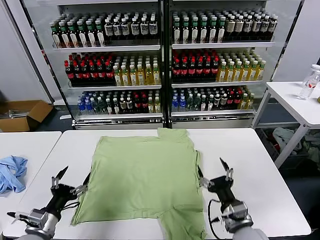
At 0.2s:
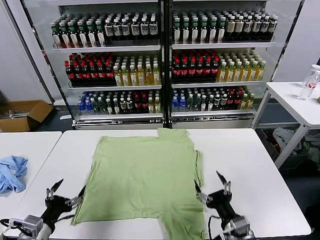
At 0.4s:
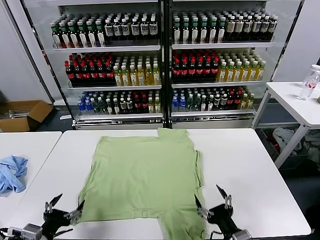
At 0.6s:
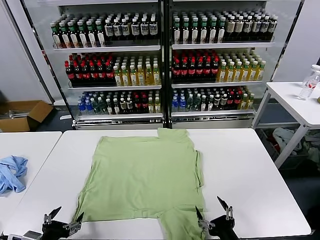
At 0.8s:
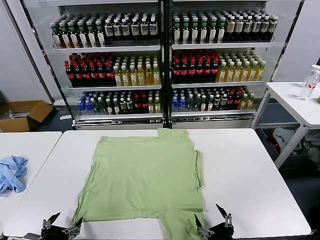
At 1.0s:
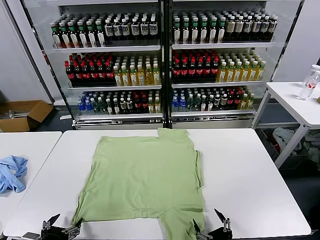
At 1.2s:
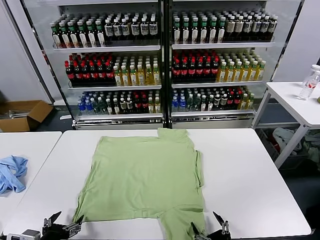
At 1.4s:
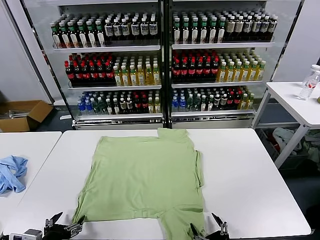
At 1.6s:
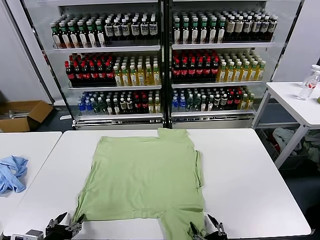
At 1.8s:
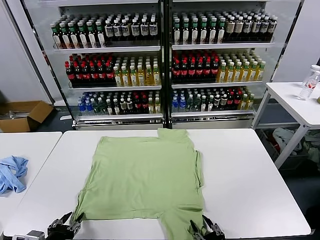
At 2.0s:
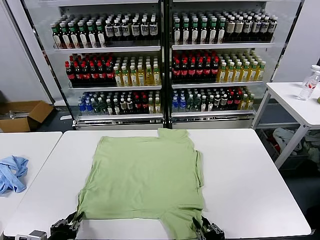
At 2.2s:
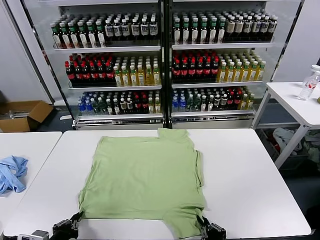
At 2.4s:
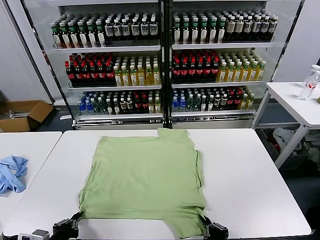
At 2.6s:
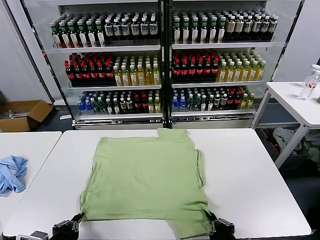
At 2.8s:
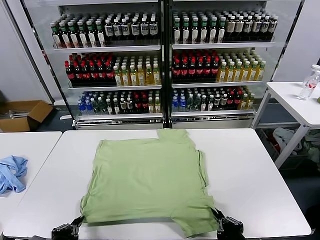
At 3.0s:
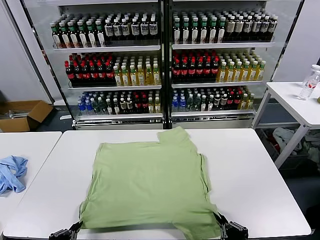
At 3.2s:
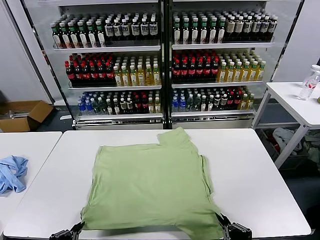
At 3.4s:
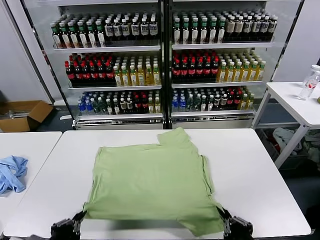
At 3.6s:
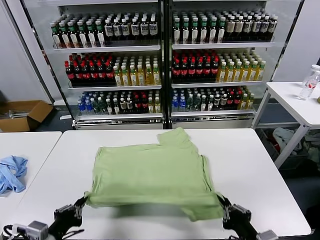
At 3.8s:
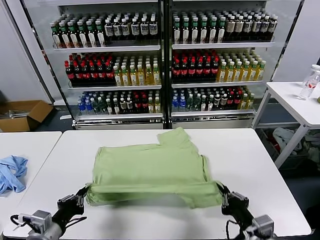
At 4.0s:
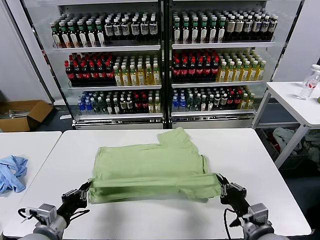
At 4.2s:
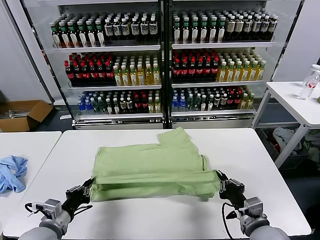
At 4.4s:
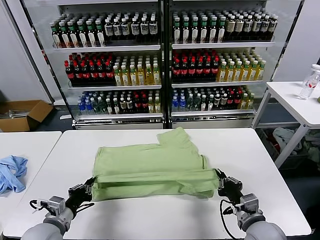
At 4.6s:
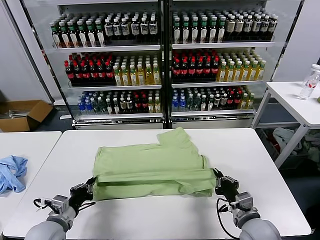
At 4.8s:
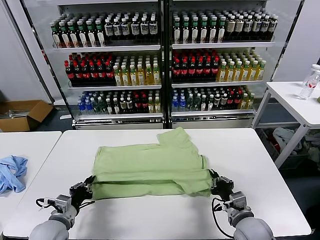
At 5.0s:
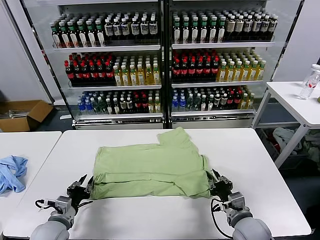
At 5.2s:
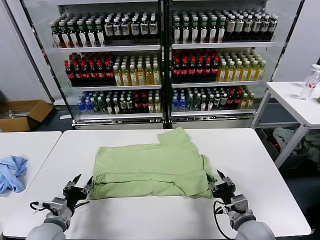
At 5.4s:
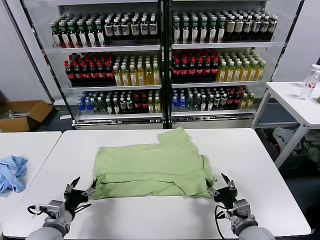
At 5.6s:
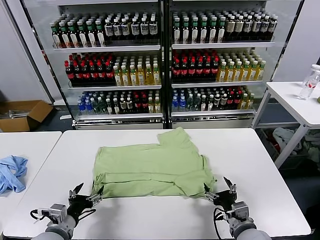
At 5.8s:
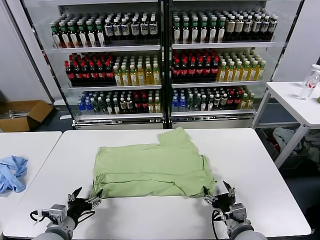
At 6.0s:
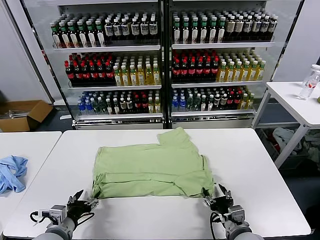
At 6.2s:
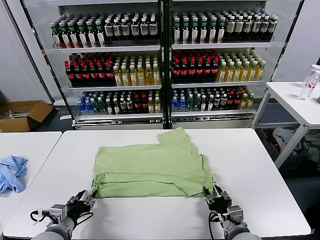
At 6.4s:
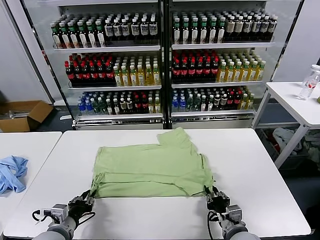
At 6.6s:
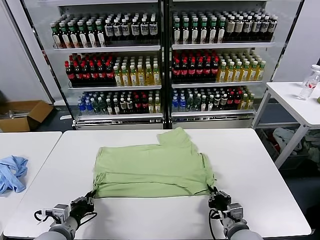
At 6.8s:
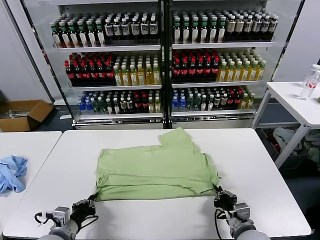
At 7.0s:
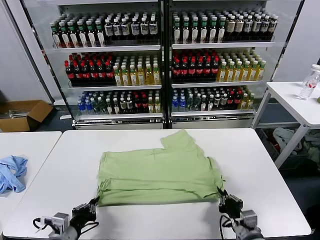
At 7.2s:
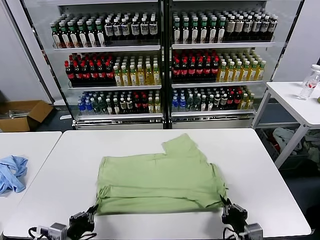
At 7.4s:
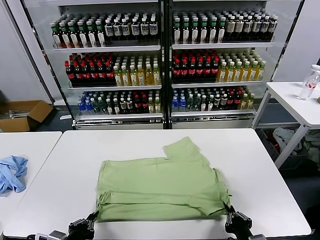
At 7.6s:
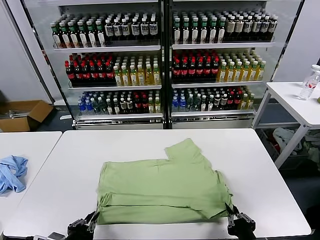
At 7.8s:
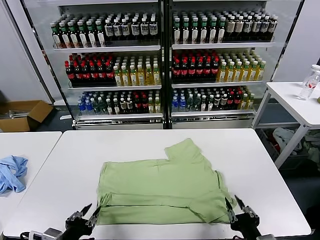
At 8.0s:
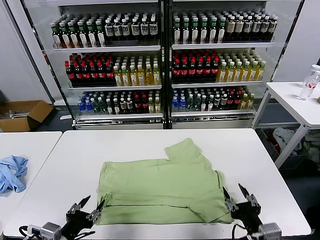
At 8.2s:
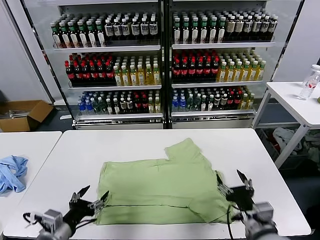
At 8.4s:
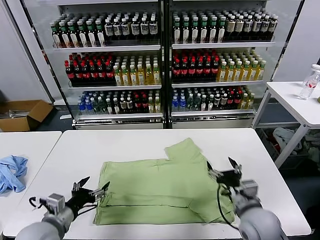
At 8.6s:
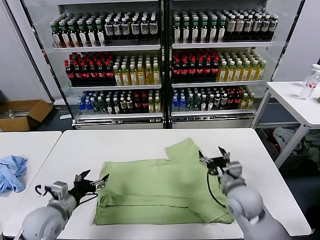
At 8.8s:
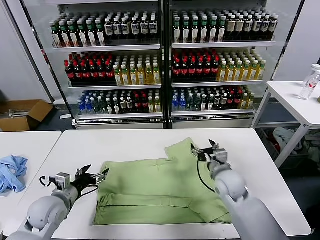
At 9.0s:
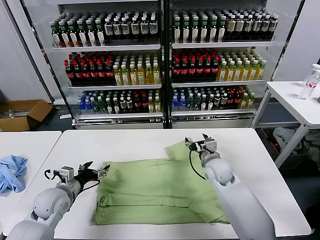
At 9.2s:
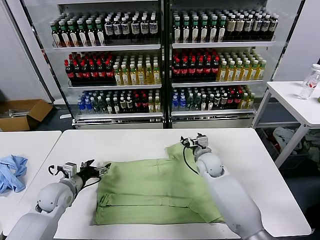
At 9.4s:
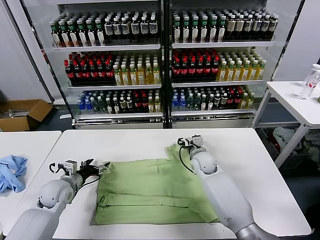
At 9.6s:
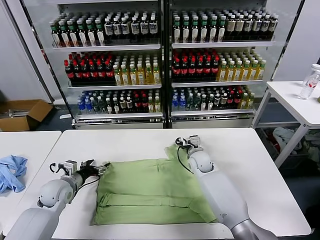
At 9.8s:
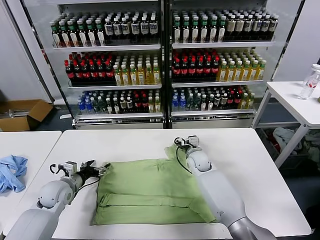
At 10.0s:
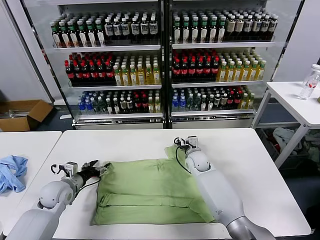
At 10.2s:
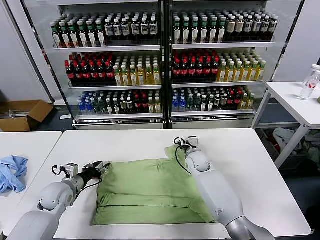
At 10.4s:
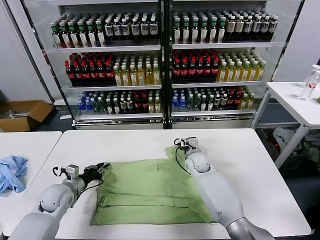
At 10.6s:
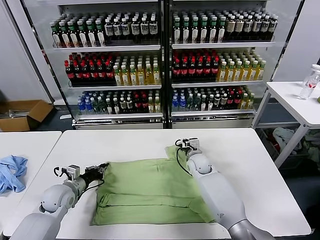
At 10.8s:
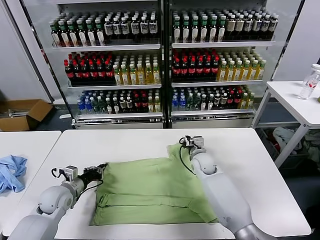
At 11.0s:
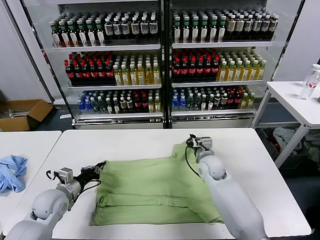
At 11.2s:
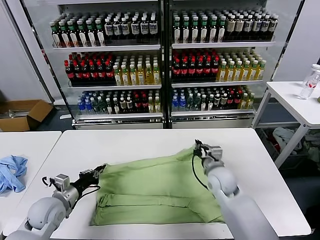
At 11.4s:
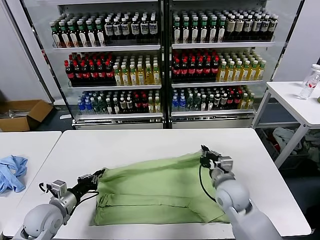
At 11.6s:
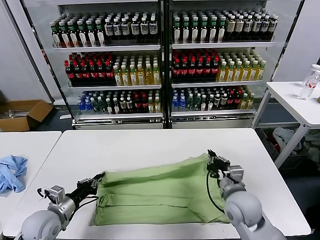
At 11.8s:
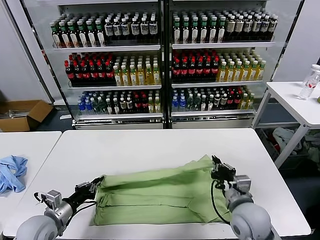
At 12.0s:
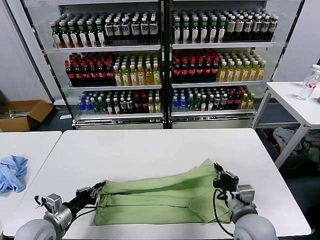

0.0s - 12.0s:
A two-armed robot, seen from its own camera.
Task of the whole recording: fold and organize the clothes.
Step, 0.0s - 2.2s: use both grippers simultaneously to clamp the lower edge of the clothing fabric.
Step, 2.4s - 5.0s: use both grippers to drag the lower edge of the fabric forward and fold it over the upper edge.
Step, 5.2s - 7.8s: Drag the clothes downward with both gripper.
Step, 8.0s - 10.6s: use both grippers simultaneously to clamp the upper edge of the clothing fabric.
1.6s - 3.0s: The right gripper travels upward by roughly 10 cm, and closes up; the left gripper ends up roughly 5 cm from where it was, and closes.
3.0s - 4.4s: The two grippers go approximately 15 cm forward.
4.4s - 6.0s: The left gripper opens. Meanwhile the right gripper ends up roughly 5 cm from where it was, and opens its fingers.
6.0s - 7.6s: The right gripper is displaced backward and upward by roughly 10 cm. Meanwhile the left gripper goes some 10 cm backward, and closes.
7.6s - 9.0s: The left gripper travels forward by about 20 cm, and opens. Meanwhile the right gripper travels forward by roughly 35 cm, and opens up.
9.0s - 10.4s: The right gripper travels downward by approximately 5 cm, and closes its fingers; the left gripper closes its fingers.
10.4s - 12.0s: The right gripper moves backward, roughly 30 cm, while the left gripper goes approximately 10 cm backward, and closes.

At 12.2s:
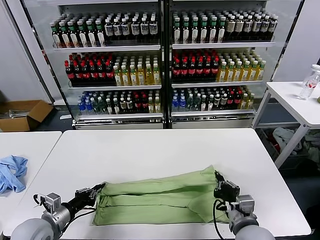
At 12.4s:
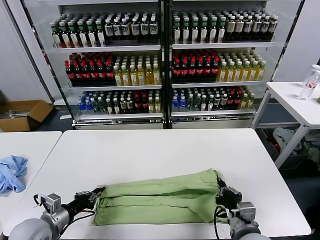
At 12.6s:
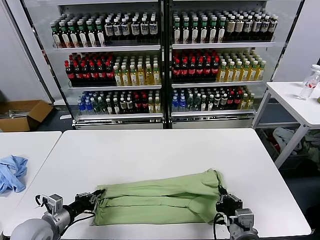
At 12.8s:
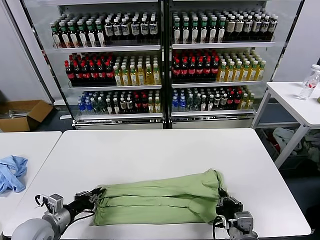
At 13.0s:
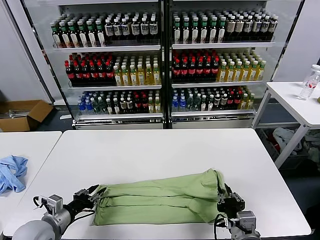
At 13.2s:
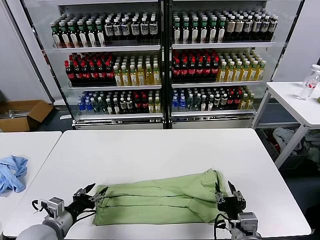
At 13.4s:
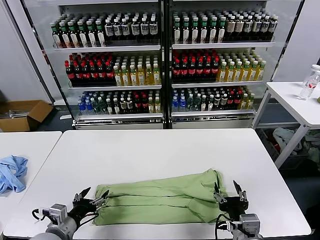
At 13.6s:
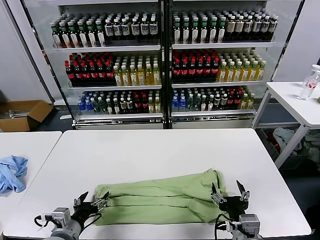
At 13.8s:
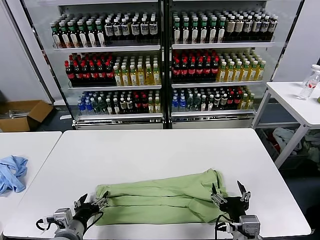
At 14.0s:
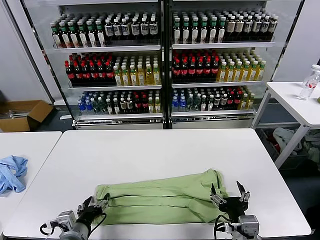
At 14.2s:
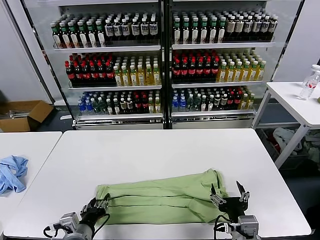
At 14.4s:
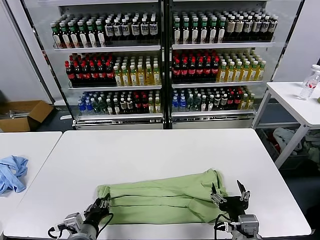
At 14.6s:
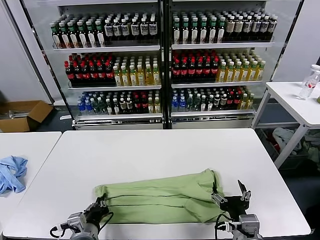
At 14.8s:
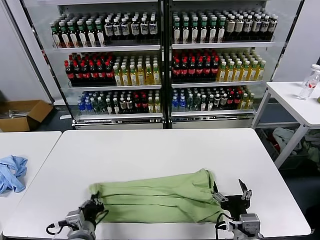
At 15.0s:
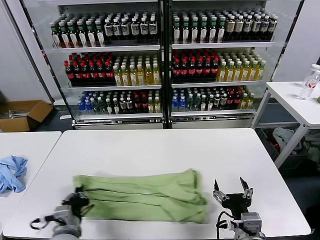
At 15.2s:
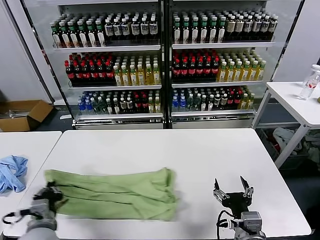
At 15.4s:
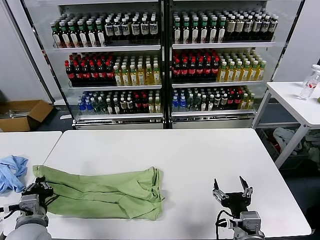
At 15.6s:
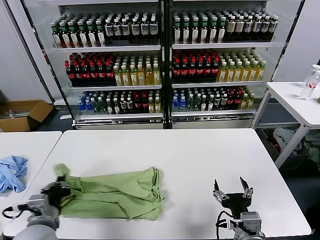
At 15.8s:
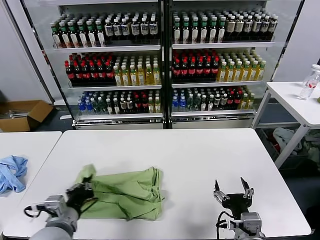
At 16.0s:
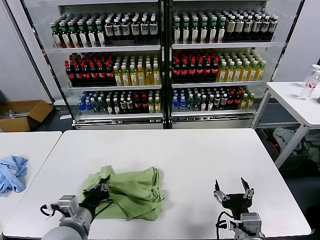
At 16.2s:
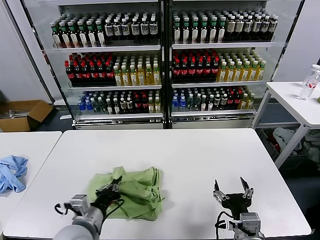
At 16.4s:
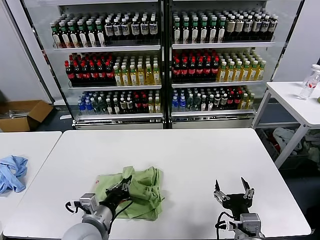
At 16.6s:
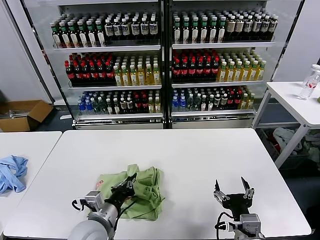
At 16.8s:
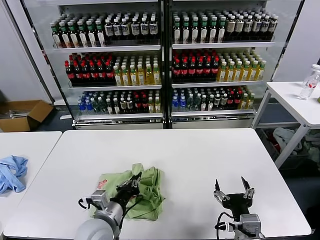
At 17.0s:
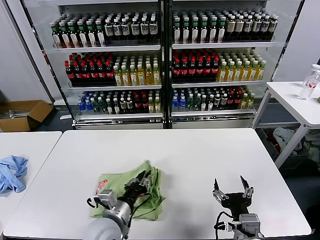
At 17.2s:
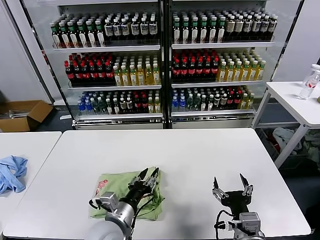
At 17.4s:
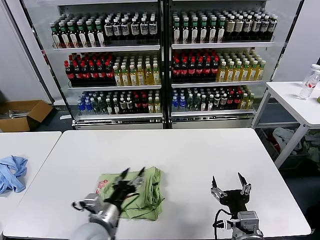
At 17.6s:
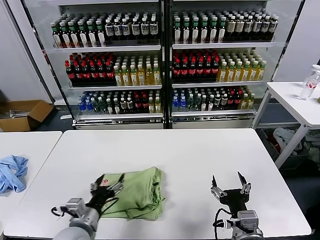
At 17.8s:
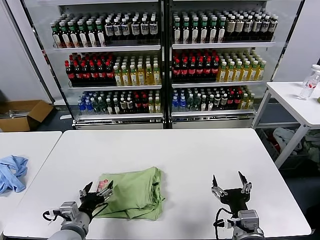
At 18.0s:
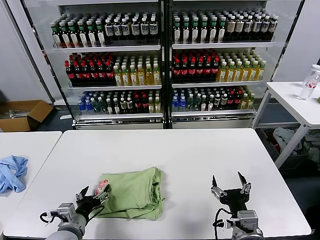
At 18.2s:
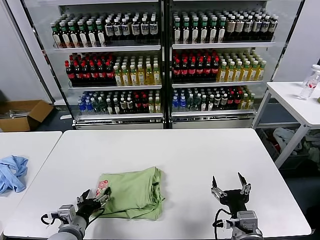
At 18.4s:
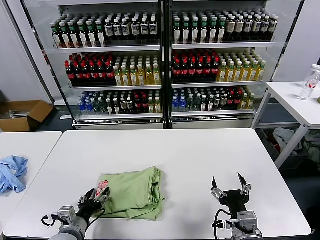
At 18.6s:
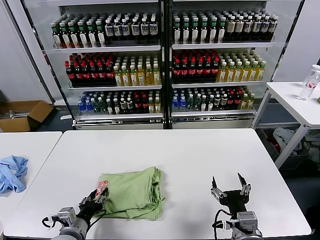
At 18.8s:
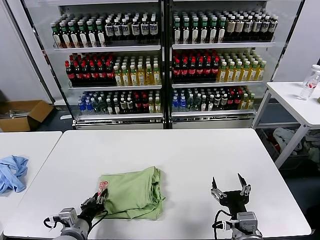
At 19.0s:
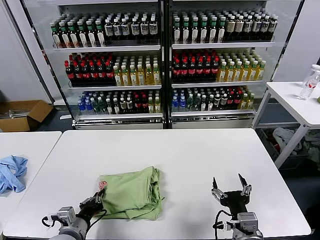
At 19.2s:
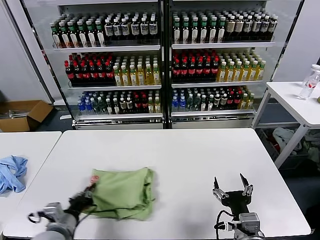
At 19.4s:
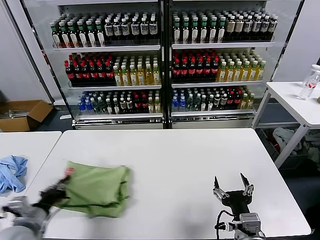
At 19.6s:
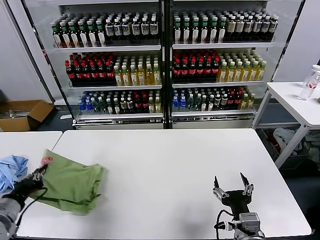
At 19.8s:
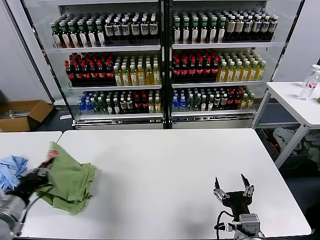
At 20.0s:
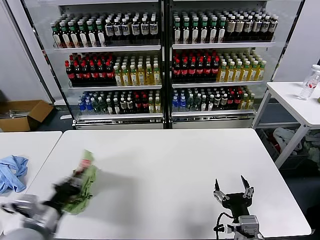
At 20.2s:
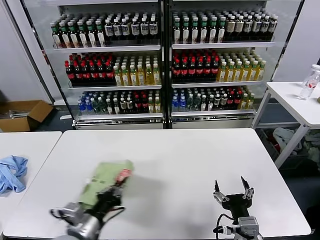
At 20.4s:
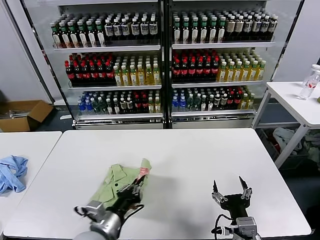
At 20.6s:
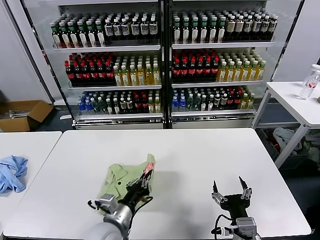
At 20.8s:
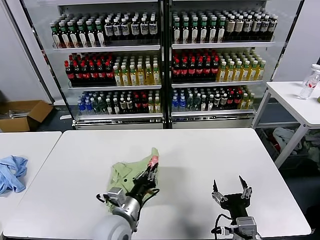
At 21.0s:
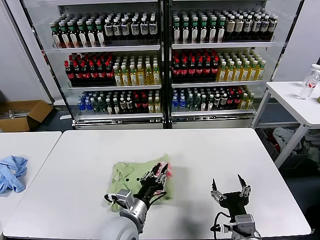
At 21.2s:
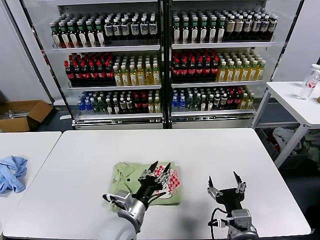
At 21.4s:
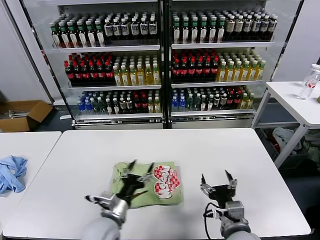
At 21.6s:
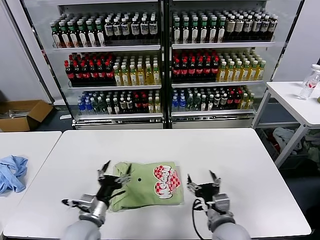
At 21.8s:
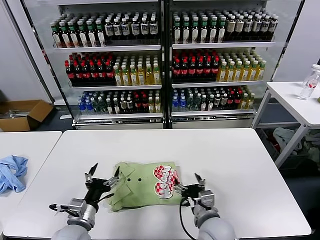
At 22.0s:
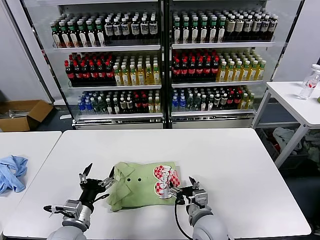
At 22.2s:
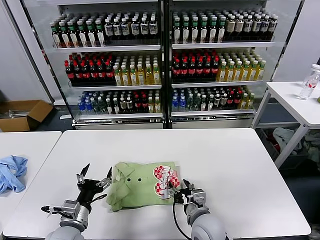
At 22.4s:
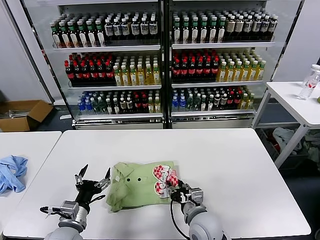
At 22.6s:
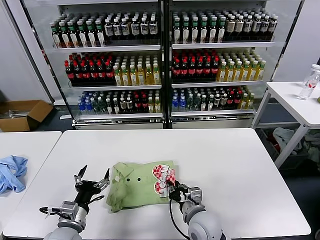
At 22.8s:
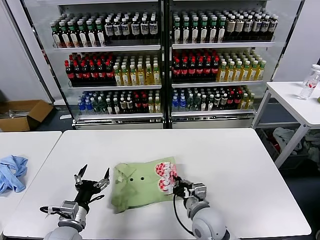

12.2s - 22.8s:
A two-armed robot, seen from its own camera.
Task of the whole recording: fold and organize the clothes.
Step, 13.2s - 14.4s: use the left gripper to clamp the left edge of the fabric.
Step, 14.8s - 17.0s: use the left gripper to drag the left edge of the fabric to the left and folds it over the right edge.
Step, 17.2s - 21.0s: Flip the folded clothes over with left gripper.
12.2s - 13.8s: The left gripper shifts roughly 10 cm to the right, and opens. Meanwhile the right gripper moves some 5 cm, and opens.
13.8s - 15.2s: The left gripper closes up.
15.2s - 16.8s: The left gripper travels to the right by approximately 15 cm.
16.8s - 18.2s: The left gripper heads to the left and downward, covering roughly 10 cm, and opens up.
18.2s - 19.8s: The left gripper shifts roughly 20 cm upward and to the left, and closes its fingers.
19.8s - 21.2s: The left gripper moves to the right, about 30 cm, and opens its fingers.
21.2s - 22.8s: The left gripper goes roughly 15 cm to the left, and opens; the right gripper shifts approximately 15 cm forward, to the left and downward, and closes its fingers.
